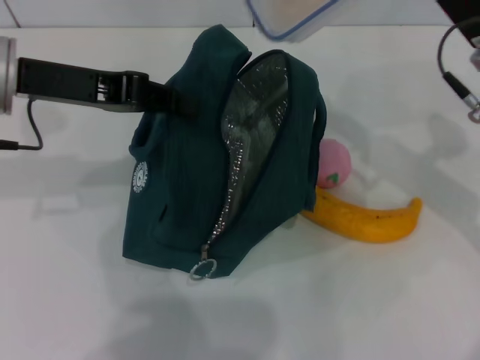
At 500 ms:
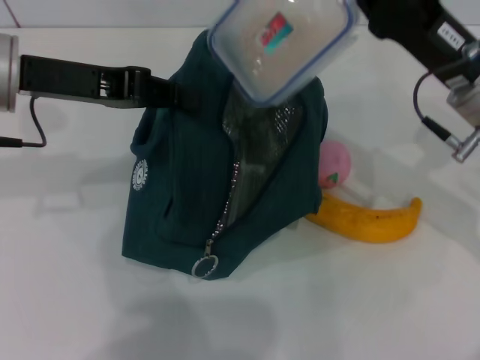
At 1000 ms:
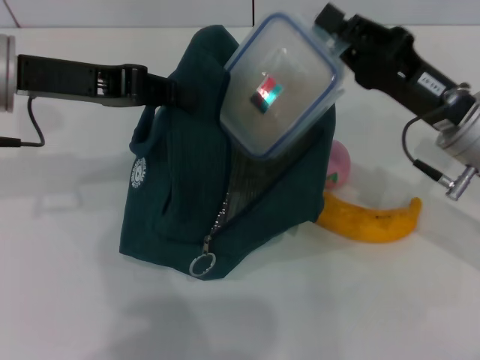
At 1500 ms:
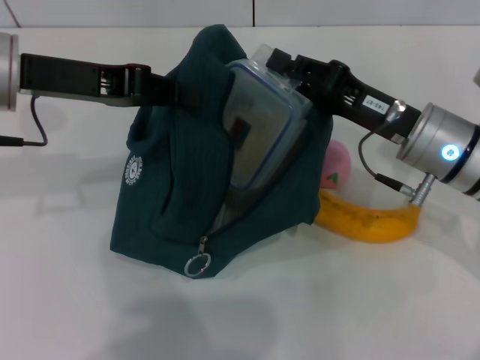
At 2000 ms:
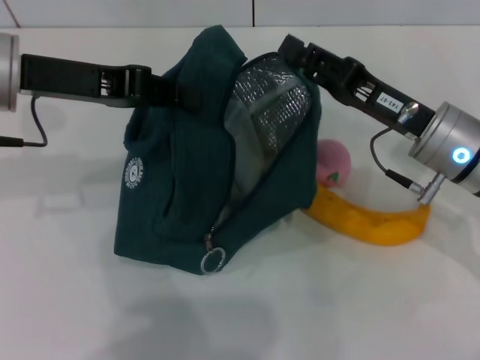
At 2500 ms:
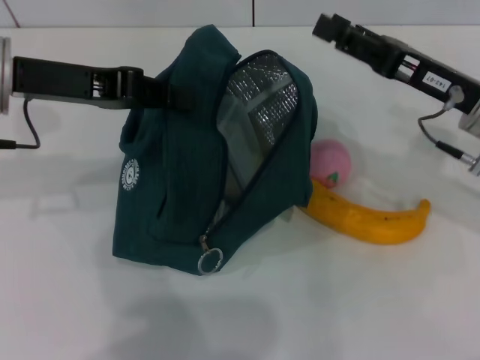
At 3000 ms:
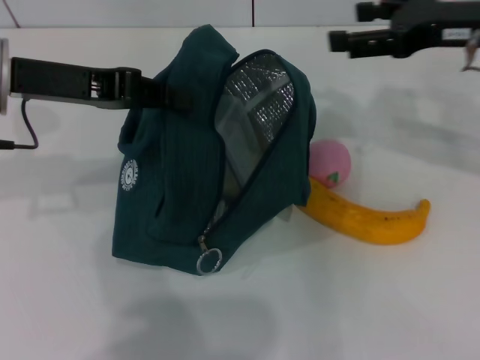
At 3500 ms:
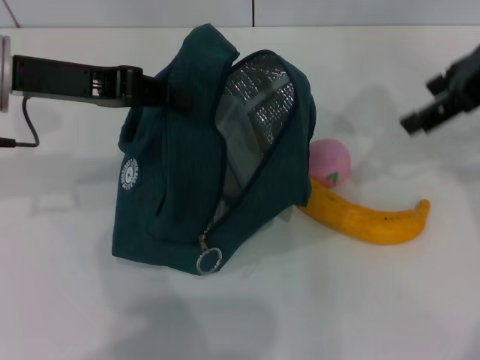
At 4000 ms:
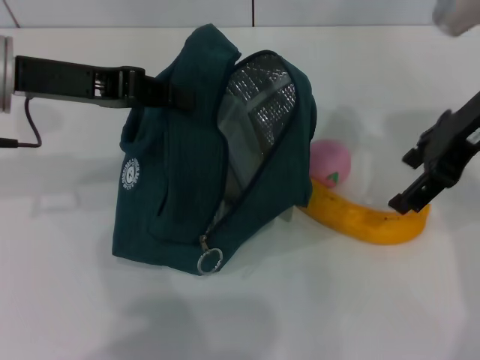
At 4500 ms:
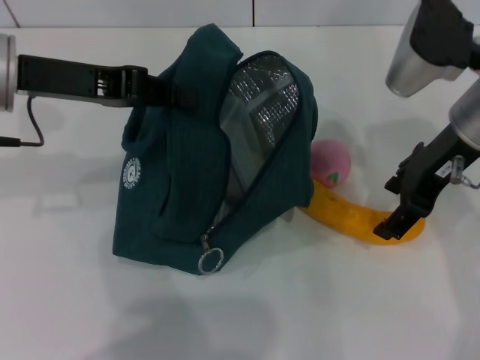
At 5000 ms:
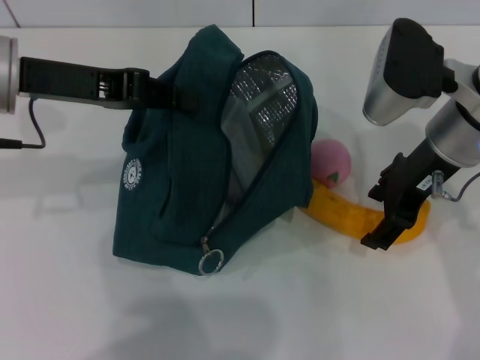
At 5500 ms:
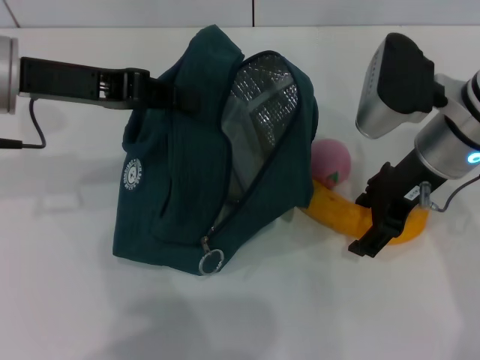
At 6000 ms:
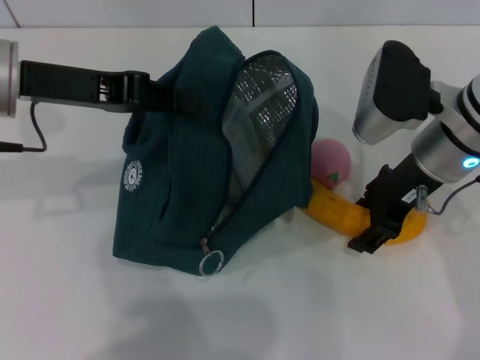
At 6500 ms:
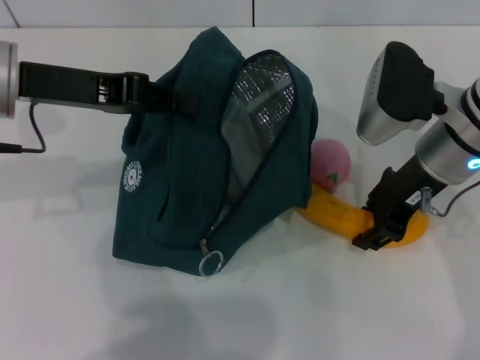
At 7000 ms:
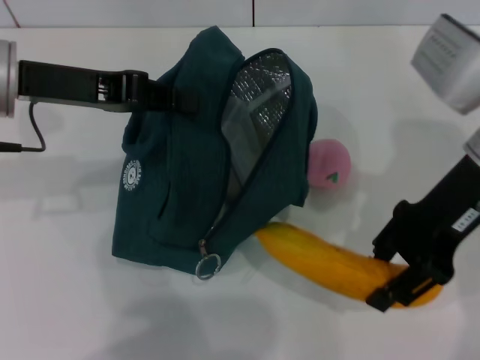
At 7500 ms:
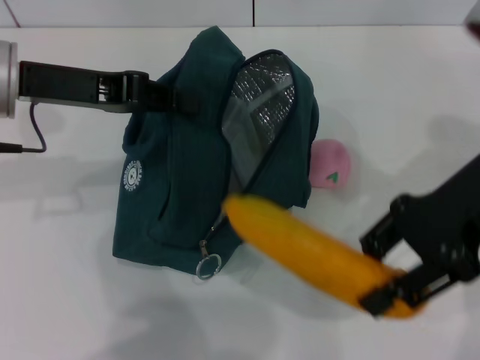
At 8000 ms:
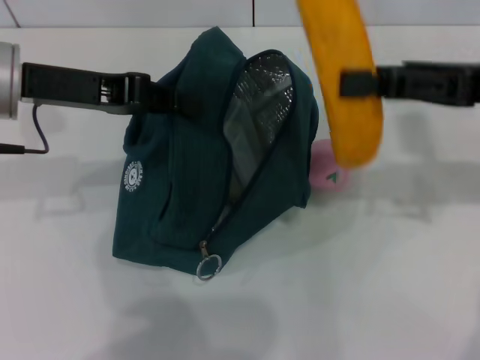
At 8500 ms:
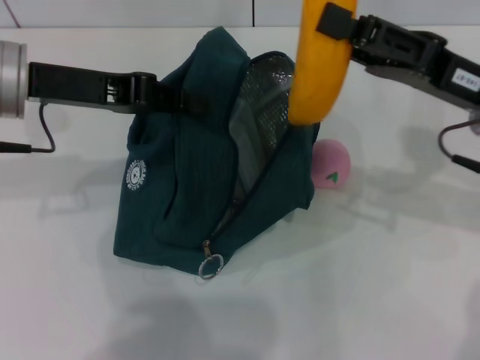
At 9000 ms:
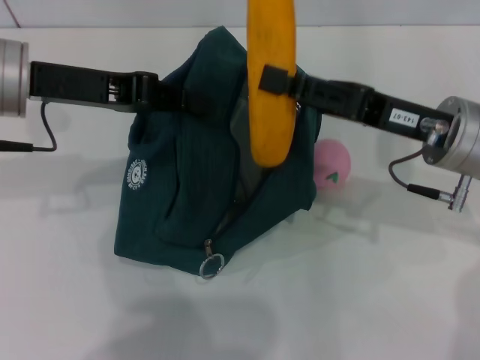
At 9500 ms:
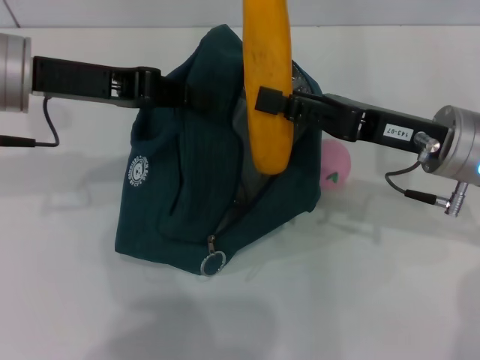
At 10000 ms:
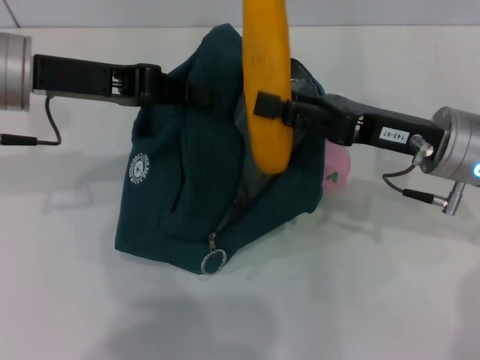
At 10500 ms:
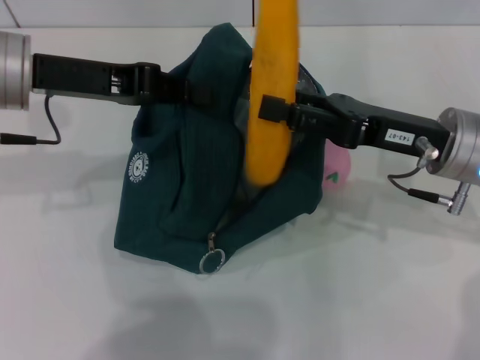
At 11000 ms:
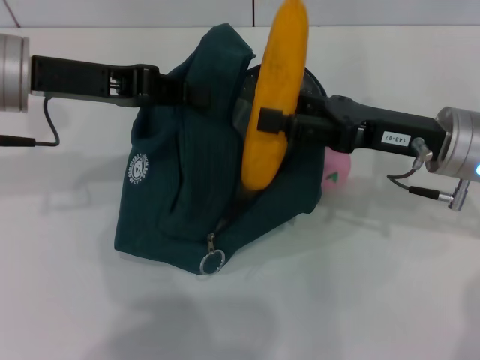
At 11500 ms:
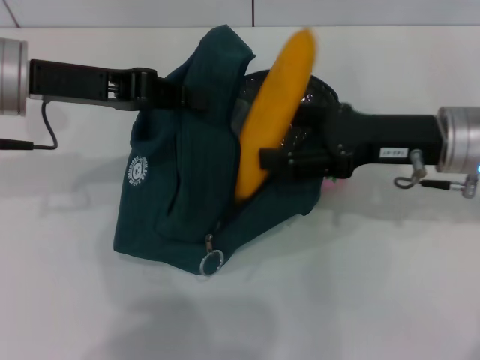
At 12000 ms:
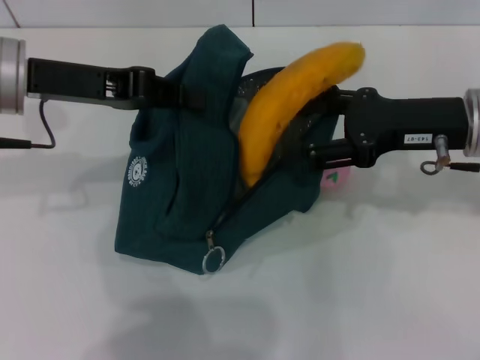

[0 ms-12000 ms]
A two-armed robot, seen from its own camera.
Step, 0 ms to 2000 ms: Place the lunch box into the lunch bag with your right hand.
Step, 2500 ms to 6500 ms: Take the banana with your right hand.
0 ms to 2000 ms: The right gripper shifts about 5 cm downward.
2000 ms to 4000 ms: The right gripper travels upward by roughly 15 cm, and opens up.
4000 ms to 6000 ms: The right gripper shifts about 10 cm downward.
6000 ms to 8000 ms: The right gripper shifts some 10 cm to the right and upward, and closes its fingers.
8000 ms to 10000 ms: The right gripper travels downward and to the left by about 10 cm.
10000 ms to 12000 ms: The right gripper opens its fingers.

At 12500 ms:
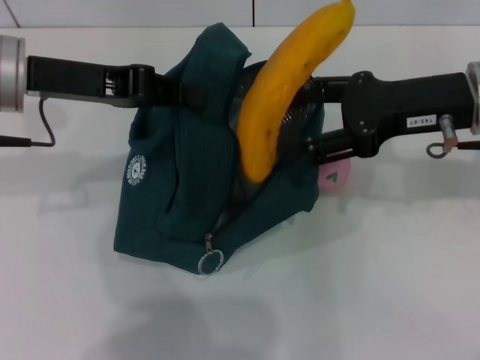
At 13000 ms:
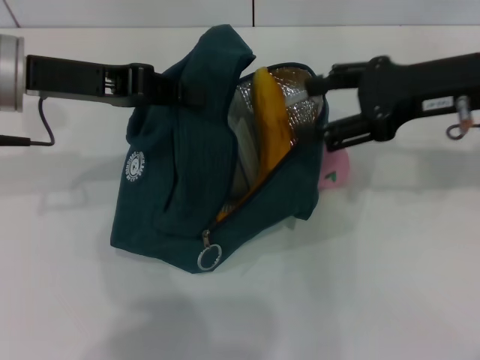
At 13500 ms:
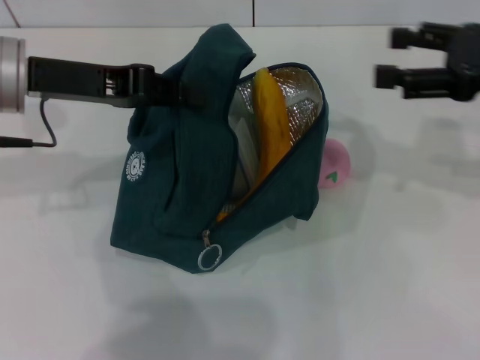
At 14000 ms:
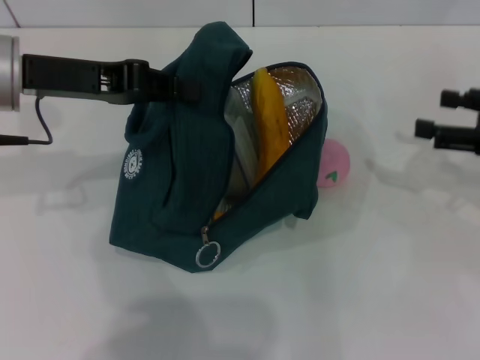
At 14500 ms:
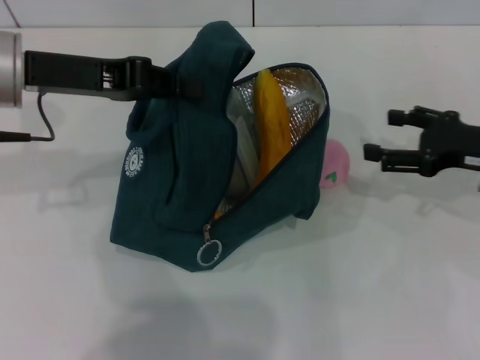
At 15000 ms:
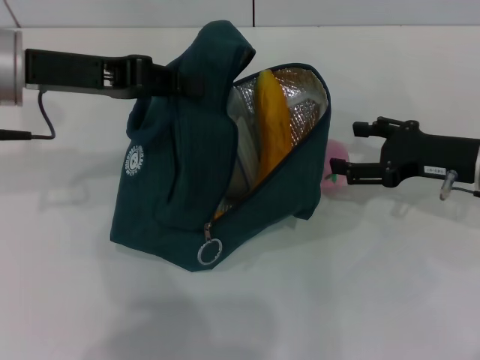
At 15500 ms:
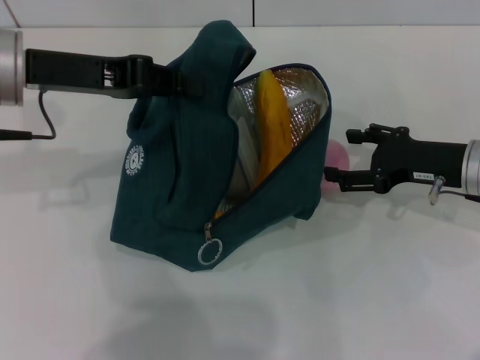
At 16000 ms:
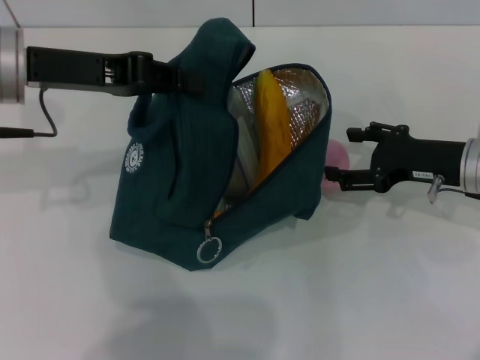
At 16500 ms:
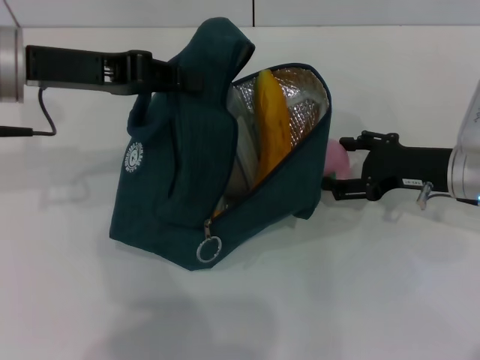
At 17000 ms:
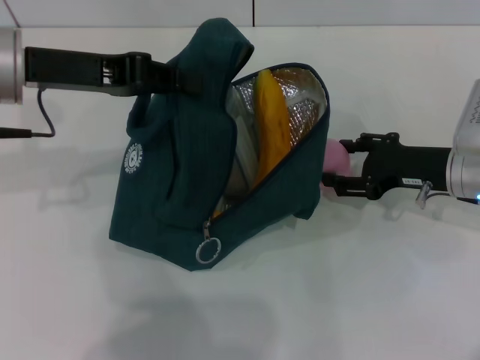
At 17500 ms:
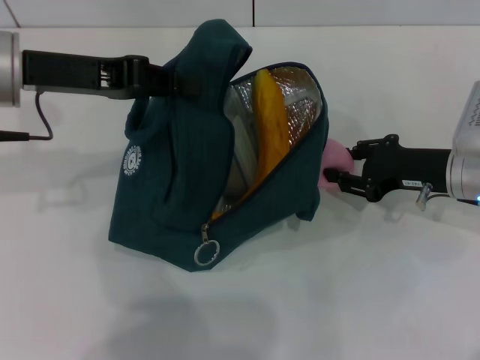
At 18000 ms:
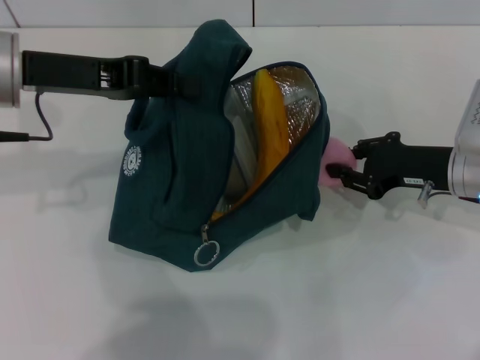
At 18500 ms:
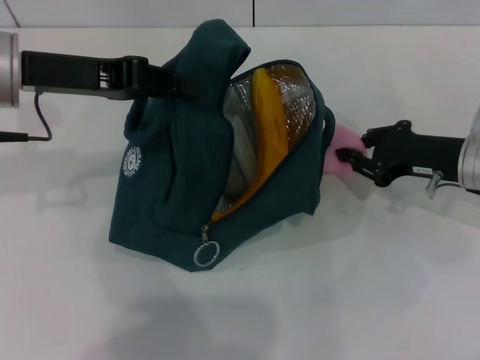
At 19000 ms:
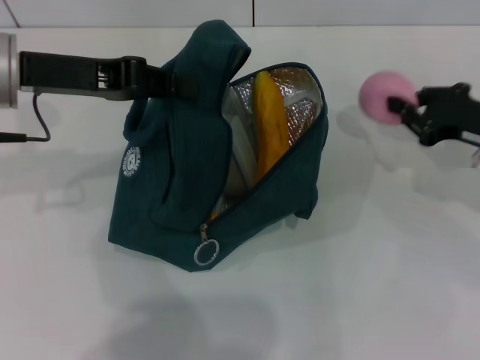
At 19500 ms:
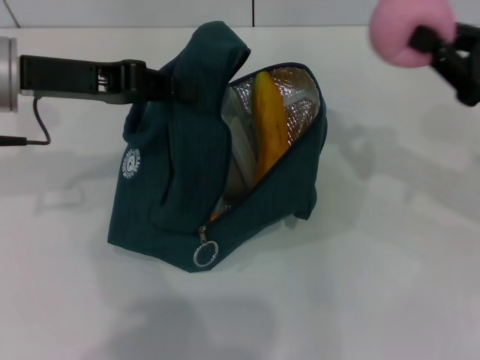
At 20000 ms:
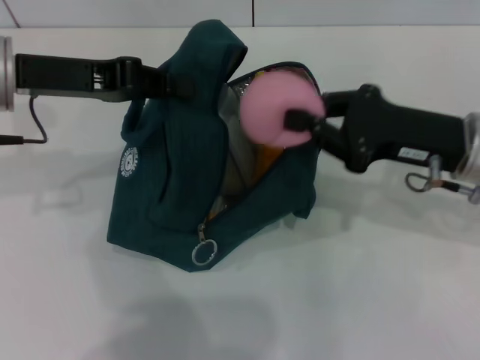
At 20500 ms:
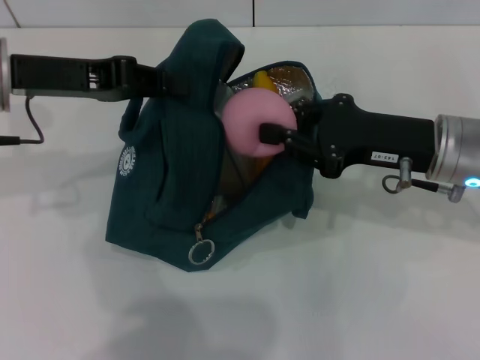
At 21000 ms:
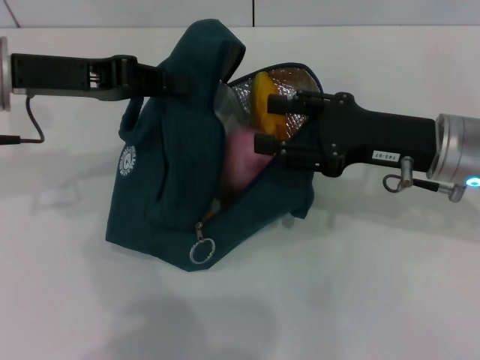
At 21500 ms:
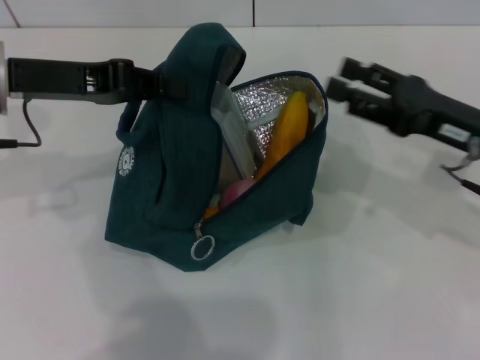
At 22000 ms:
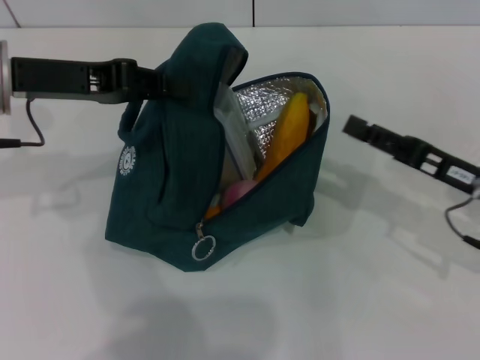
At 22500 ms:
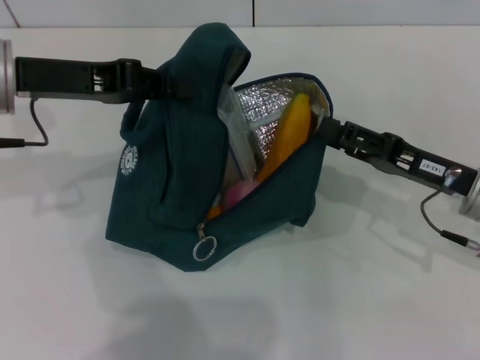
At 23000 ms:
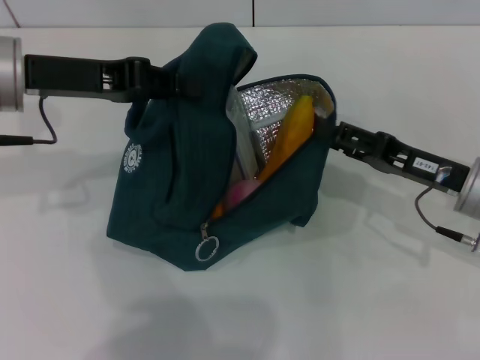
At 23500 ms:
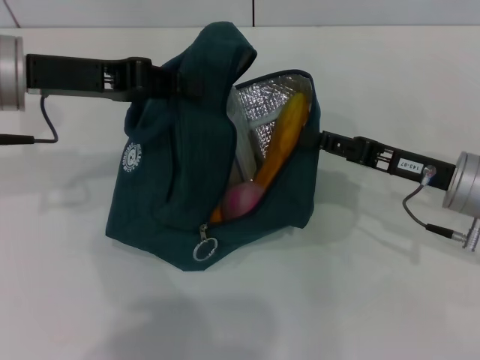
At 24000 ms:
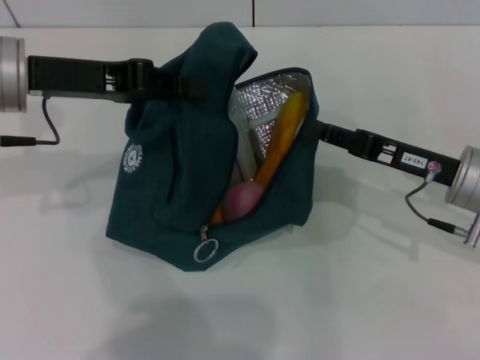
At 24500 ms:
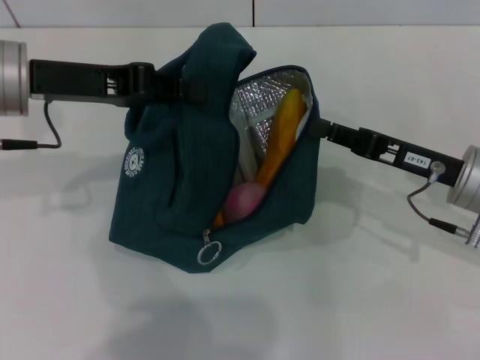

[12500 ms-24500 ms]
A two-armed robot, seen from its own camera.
Step, 13500 ms to 17500 ms: Grab the peach with your right hand.
12500 ms to 14500 ms: The right gripper travels downward and to the right by roughly 10 cm.
14500 ms to 16500 ms: The right gripper goes about 5 cm to the left.
16500 ms to 18500 ms: The right gripper closes up.
18500 ms to 20500 ms: The right gripper moves to the left and upward, roughly 10 cm.
20500 ms to 22500 ms: The right gripper shifts roughly 5 cm downward, and opens its fingers.
22500 ms to 24500 ms: The right gripper closes.

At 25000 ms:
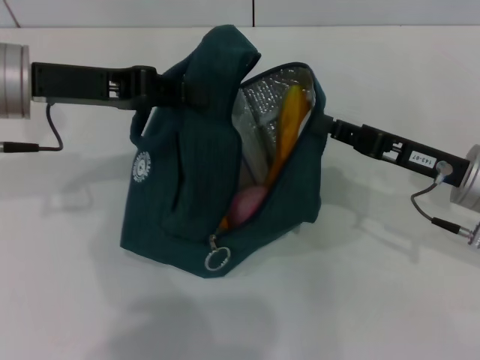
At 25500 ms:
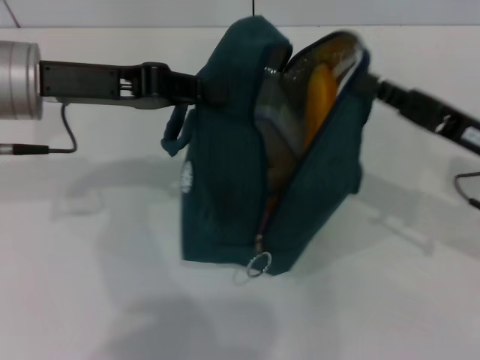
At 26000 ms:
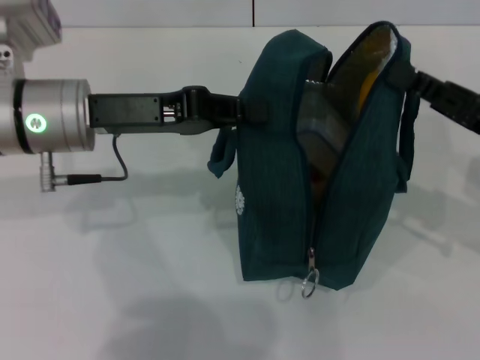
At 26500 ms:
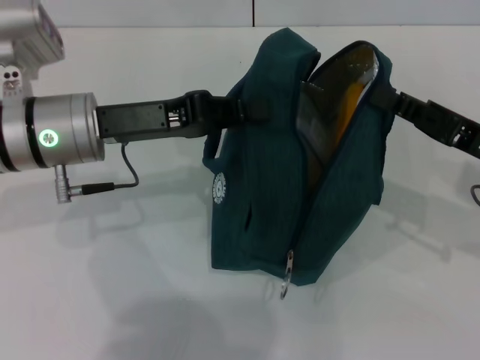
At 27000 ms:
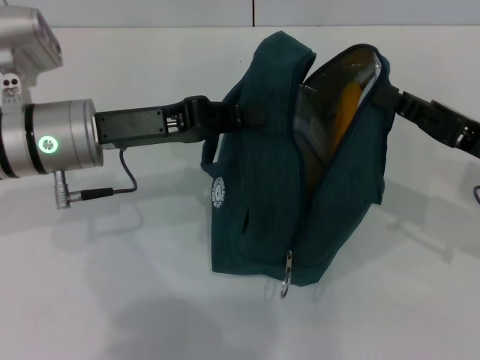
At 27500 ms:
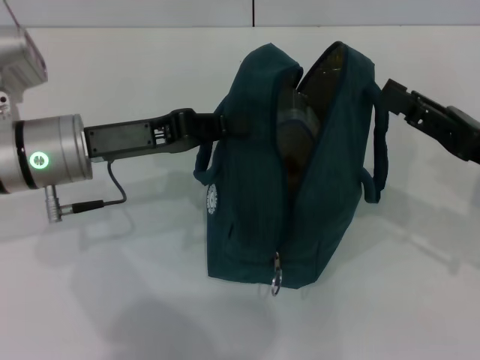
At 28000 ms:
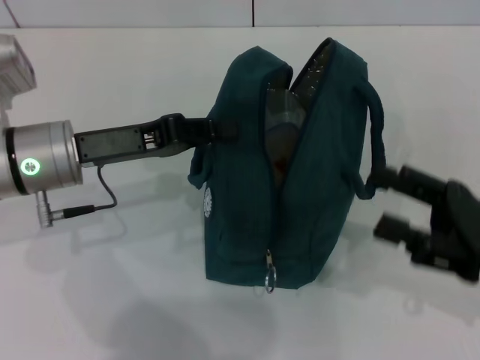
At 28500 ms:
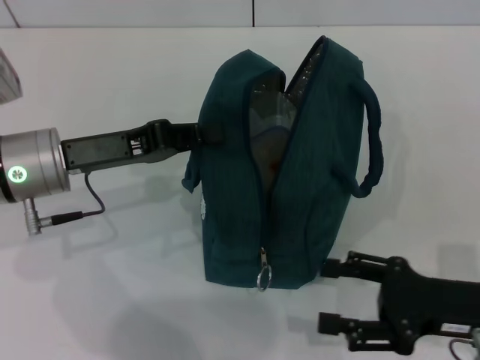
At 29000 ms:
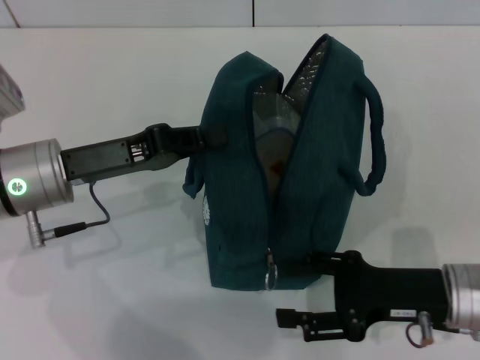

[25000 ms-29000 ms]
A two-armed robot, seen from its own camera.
Step, 25000 ms to 27000 ms: Zip up the lunch bag with your right hand.
25000 ms to 27000 ms: The left gripper travels downward by roughly 5 cm.
27000 ms to 29000 ms: The right gripper travels downward, backward and to the left by roughly 10 cm, and opens its fingers.
